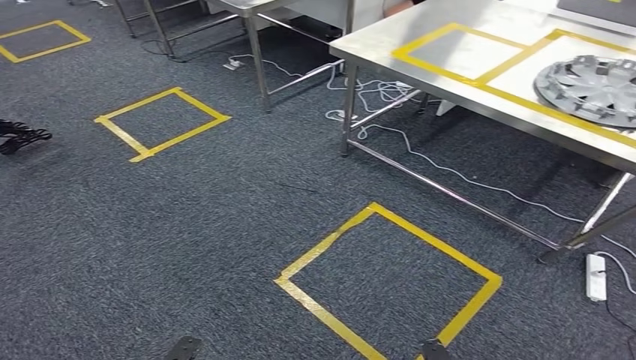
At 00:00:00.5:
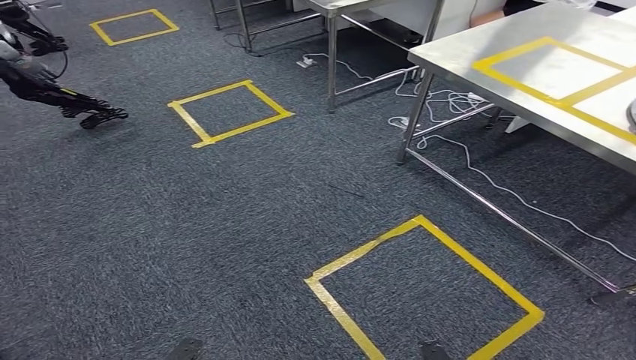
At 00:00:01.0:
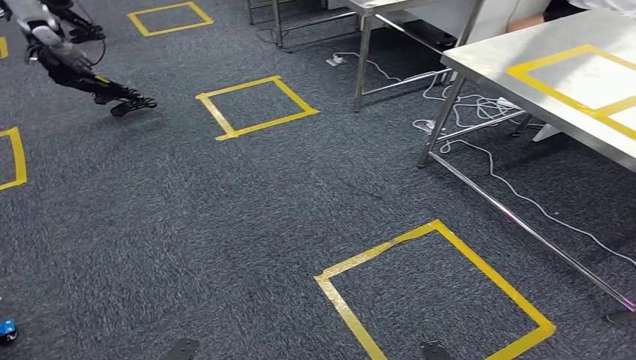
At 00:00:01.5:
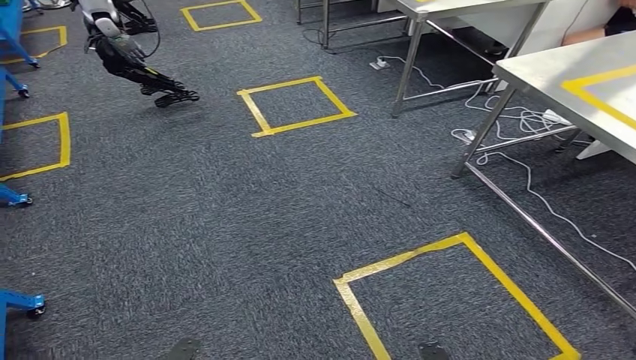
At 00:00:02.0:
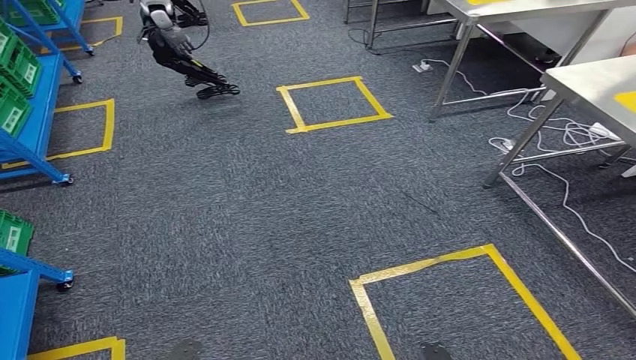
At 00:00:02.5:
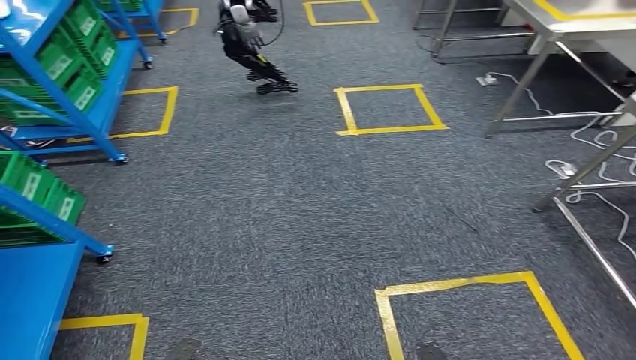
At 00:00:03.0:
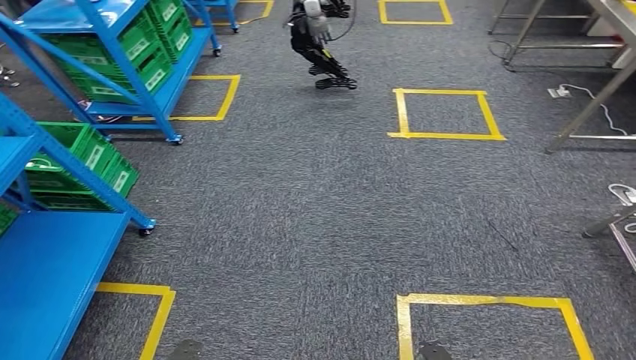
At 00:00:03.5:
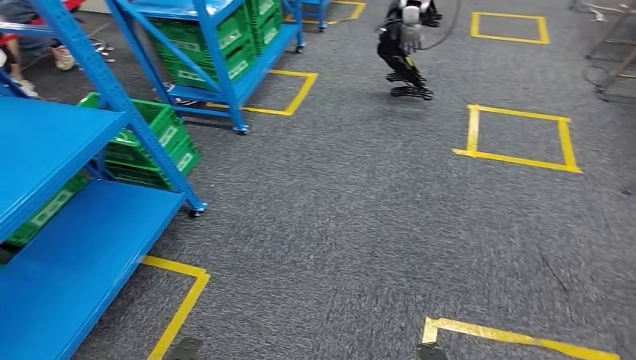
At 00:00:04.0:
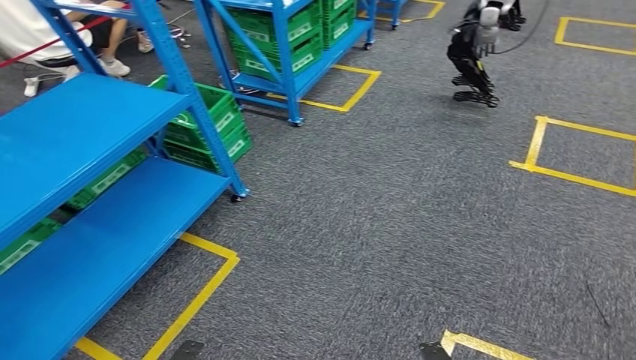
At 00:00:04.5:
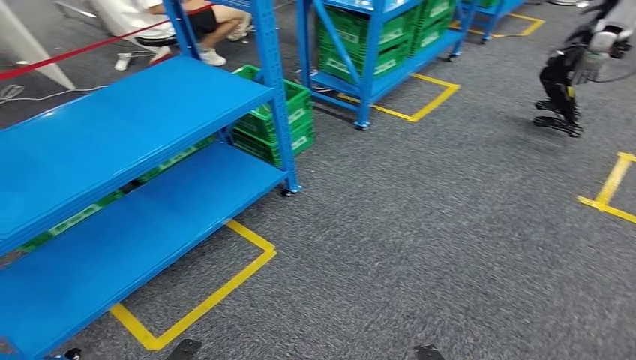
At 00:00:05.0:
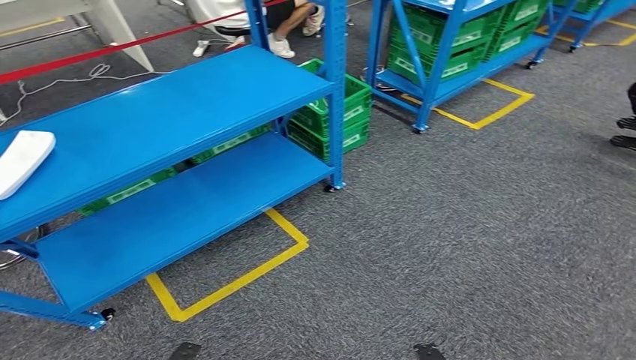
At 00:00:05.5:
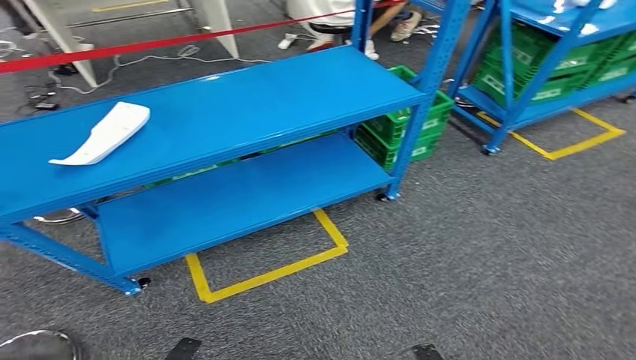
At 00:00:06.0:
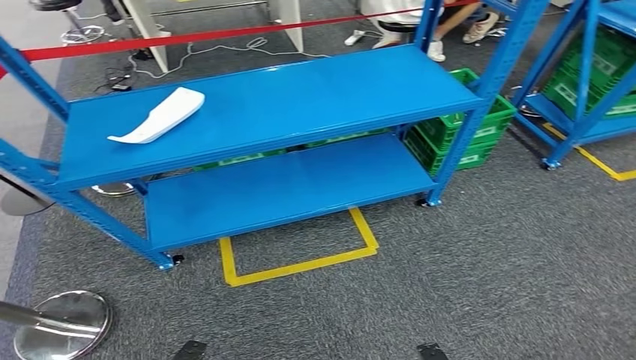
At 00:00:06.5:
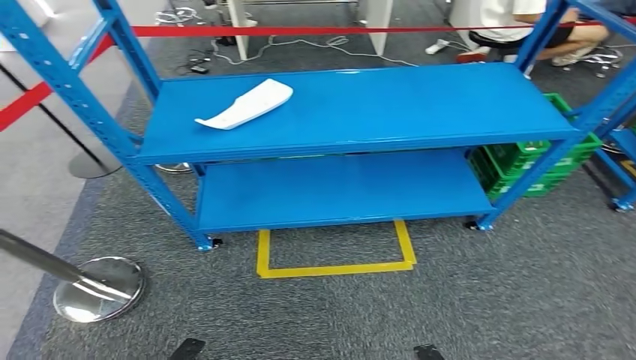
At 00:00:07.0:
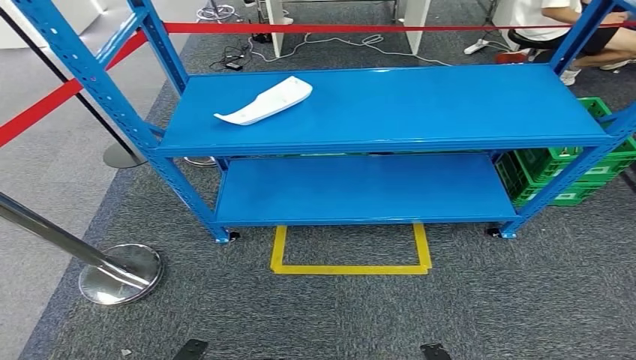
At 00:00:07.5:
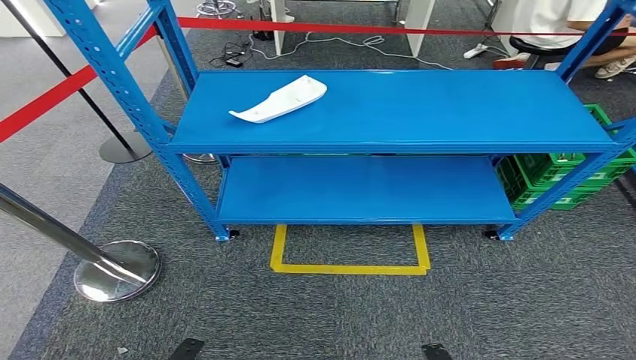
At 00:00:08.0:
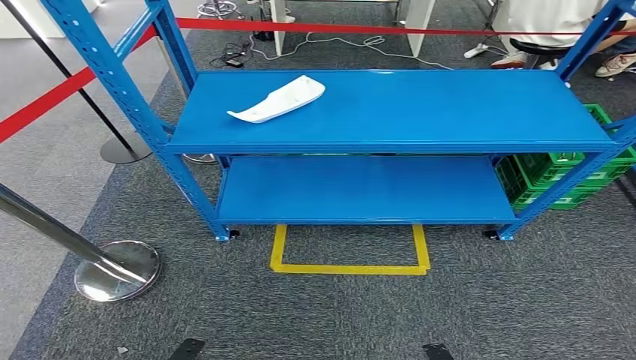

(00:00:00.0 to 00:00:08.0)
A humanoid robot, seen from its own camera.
Step, 00:00:00.0 - 00:00:07.5: Move to the initial position at the workbench.
